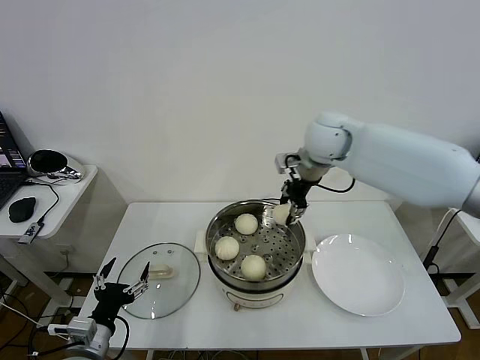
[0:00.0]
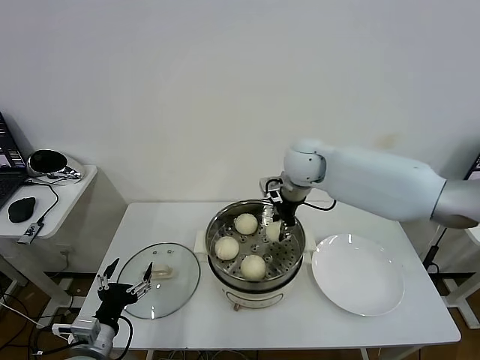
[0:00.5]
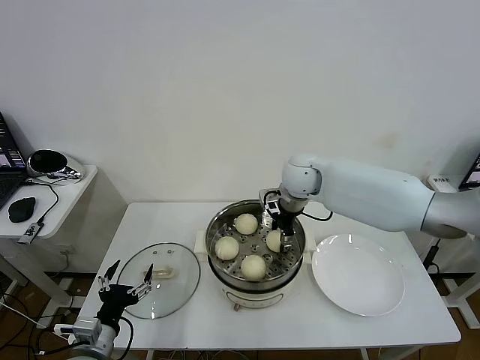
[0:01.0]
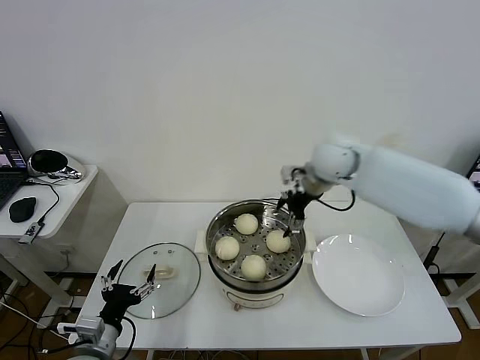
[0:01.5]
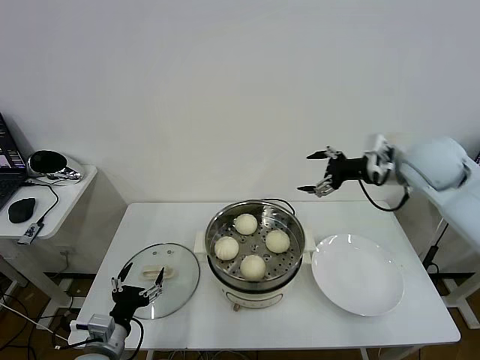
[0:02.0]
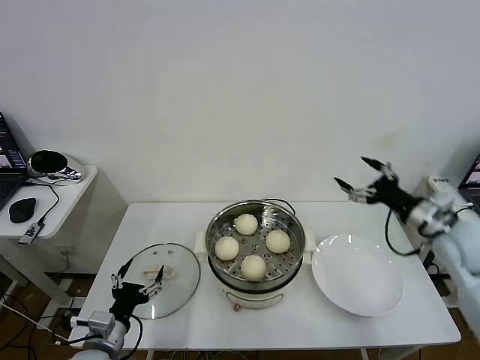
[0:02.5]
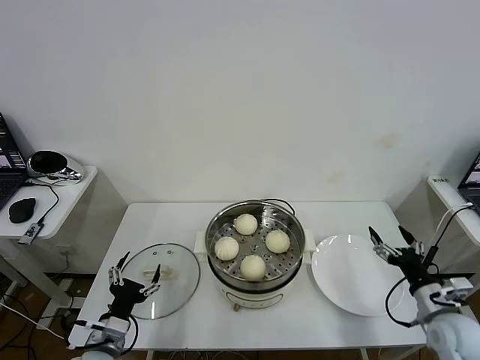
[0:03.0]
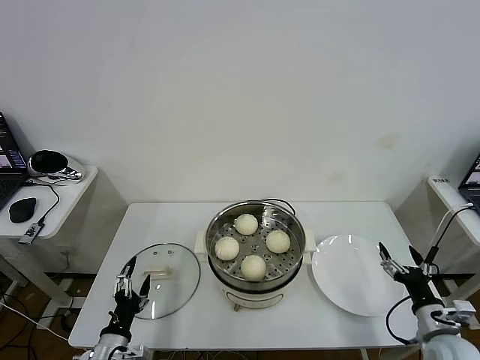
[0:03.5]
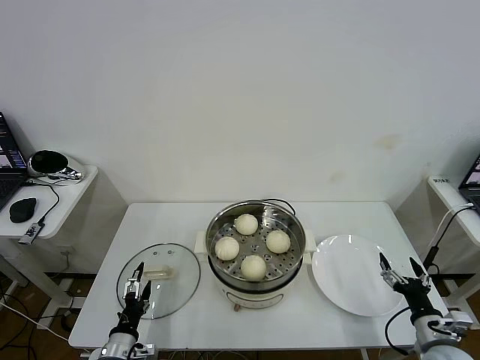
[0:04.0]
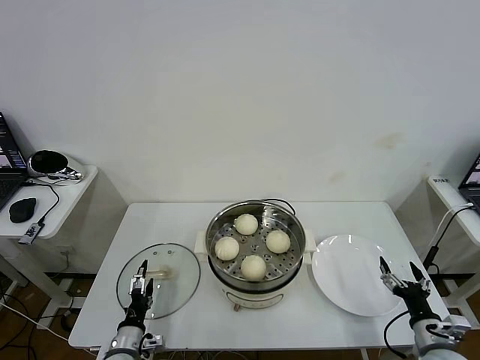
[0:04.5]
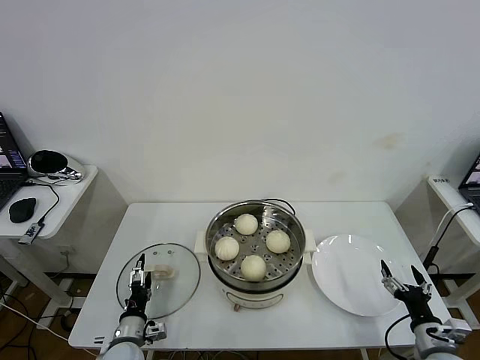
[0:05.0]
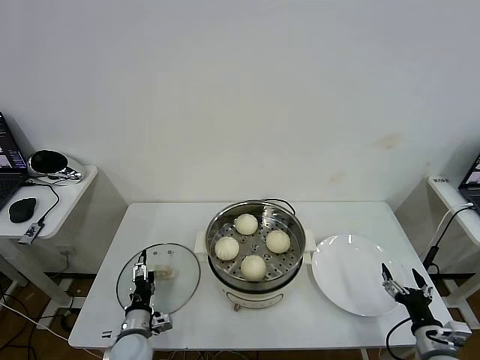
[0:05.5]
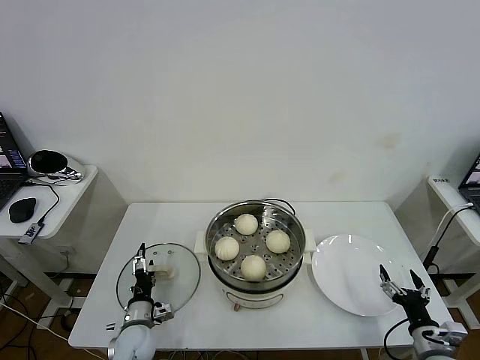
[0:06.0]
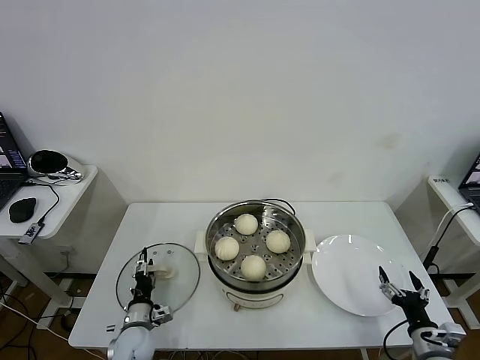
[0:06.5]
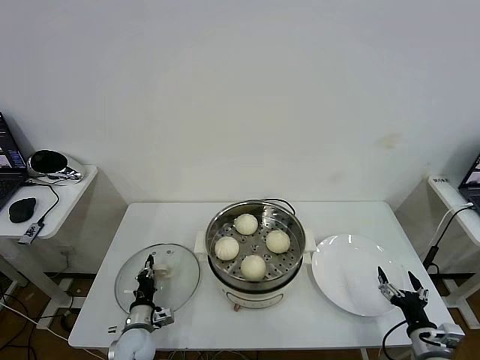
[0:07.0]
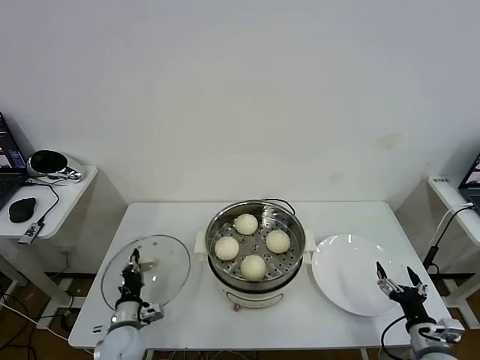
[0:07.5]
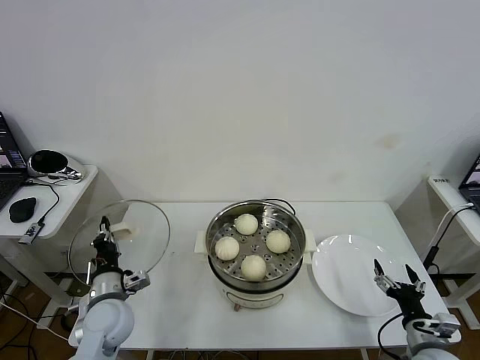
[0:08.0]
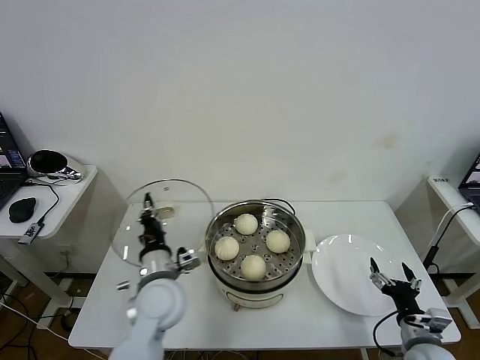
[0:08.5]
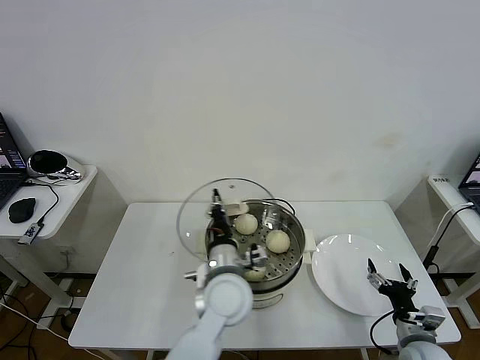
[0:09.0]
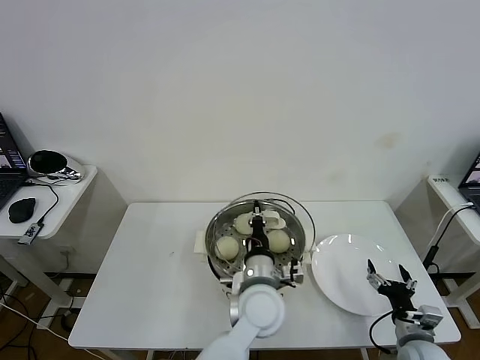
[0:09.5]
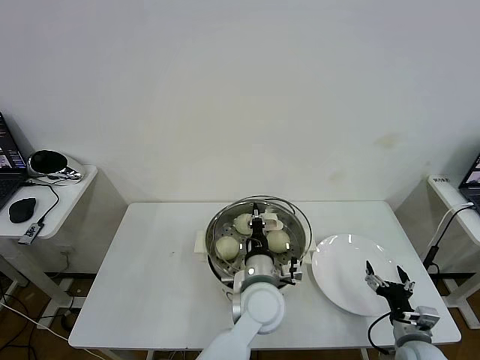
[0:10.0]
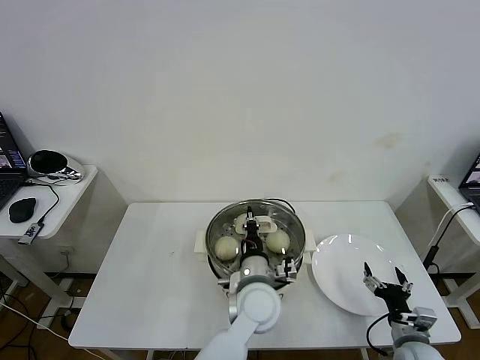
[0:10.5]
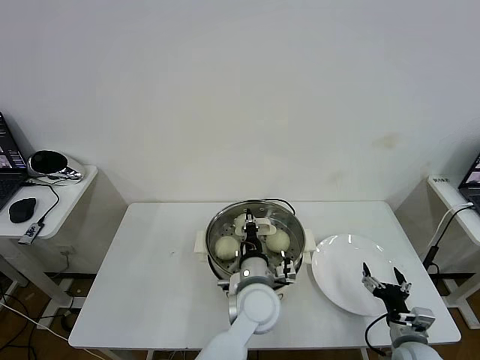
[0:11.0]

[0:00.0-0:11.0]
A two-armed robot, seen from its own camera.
Task of the whole recording: take steamed baozi put them in steamer then cover it.
Step, 0:00.0 to 0:01.5: Place the baozi on the steamer with right gripper.
Step, 0:02.0 to 0:07.0: Grasp the pot lid with left gripper.
0:00.0 to 0:02.0: The right gripper shifts approximately 20 cm to the right and backward, and opens its fingers.
0:02.0 to 0:03.5: The right gripper goes approximately 40 cm downward and backward.
0:03.5 to 0:05.5: The left gripper moves forward and downward, roughly 10 cm.
0:05.5 to 0:07.5: The left gripper closes its fingers.
0:07.5 to 0:09.0: The left gripper moves to the right and upward, about 30 cm.
0:09.0 to 0:11.0: The left gripper heads to the right, covering some 5 cm.

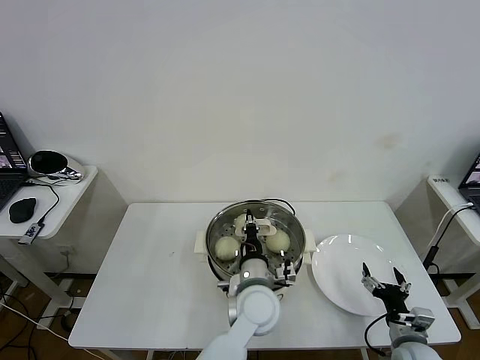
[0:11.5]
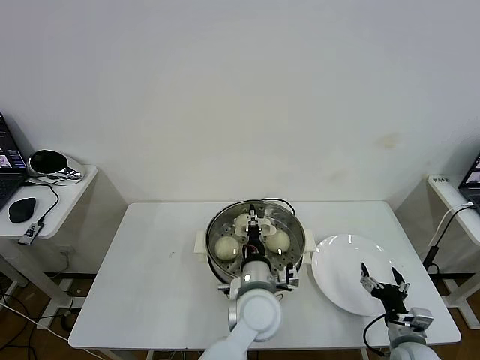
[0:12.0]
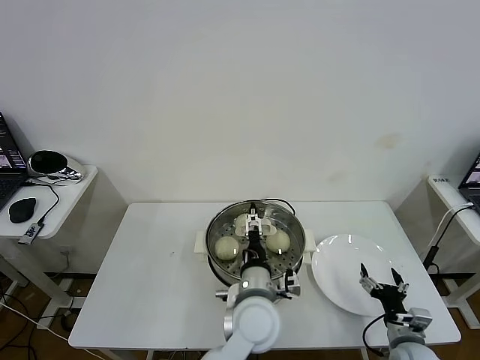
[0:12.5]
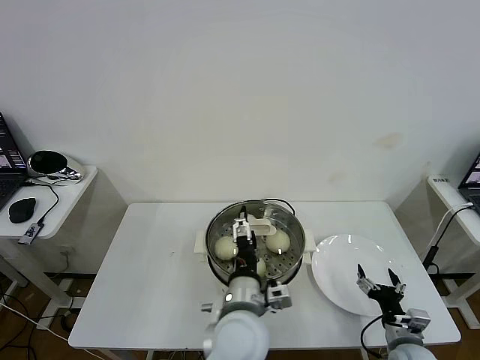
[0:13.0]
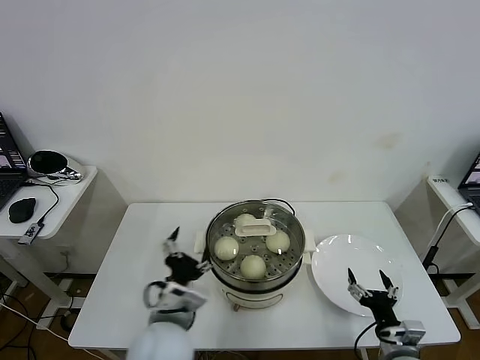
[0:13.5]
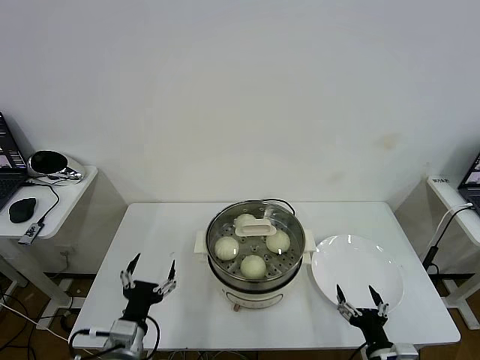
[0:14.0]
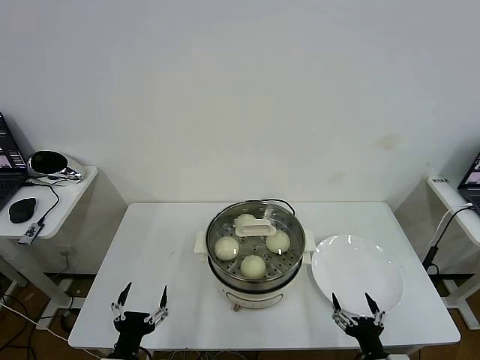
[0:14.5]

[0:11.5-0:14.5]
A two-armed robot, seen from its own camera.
Task of the whole recording: take steamed baozi put them in steamer then cover it.
0:11.5 to 0:13.0: The left gripper moves backward, approximately 5 cm, and opens its fingers.
0:13.0 to 0:14.5: The right gripper is displaced backward and to the left by about 10 cm, while the left gripper shifts some 30 cm to the left, downward and backward.
